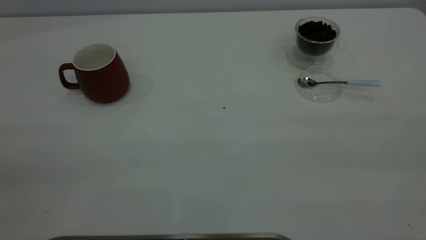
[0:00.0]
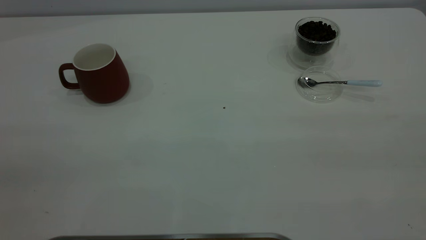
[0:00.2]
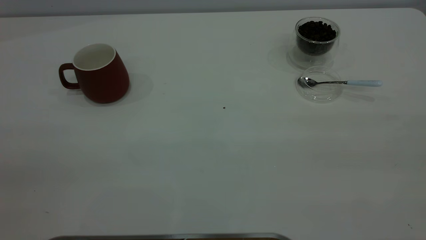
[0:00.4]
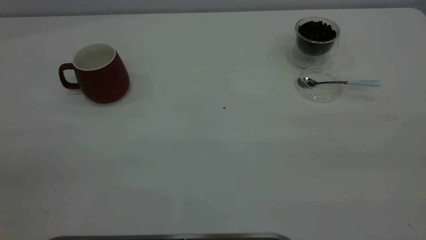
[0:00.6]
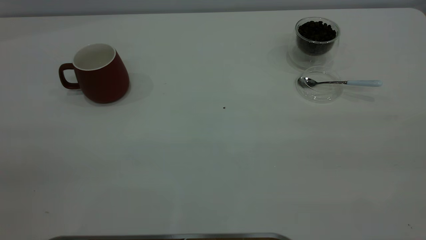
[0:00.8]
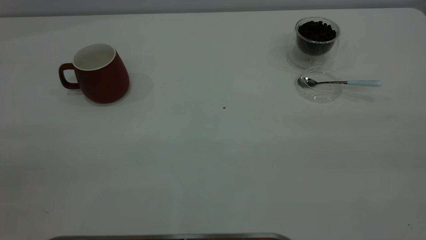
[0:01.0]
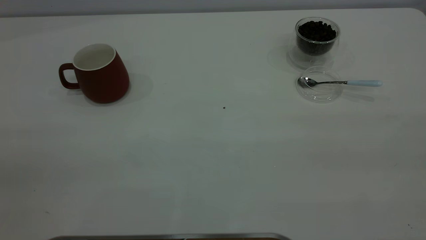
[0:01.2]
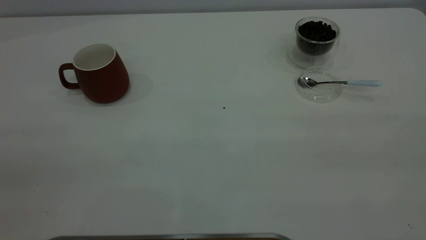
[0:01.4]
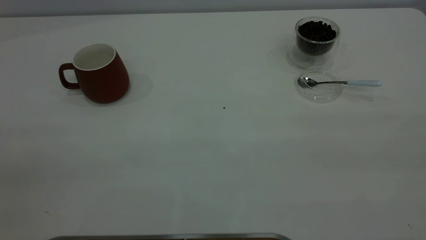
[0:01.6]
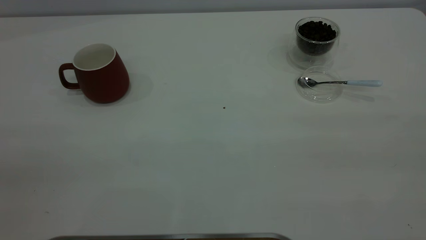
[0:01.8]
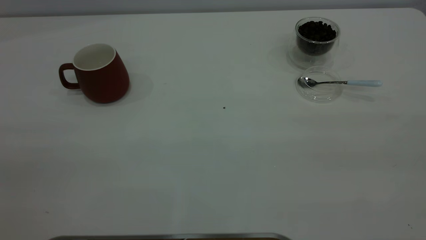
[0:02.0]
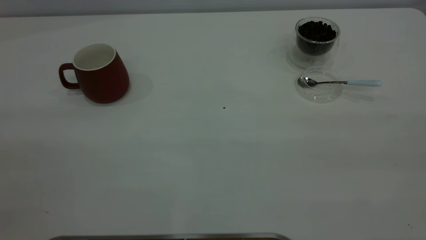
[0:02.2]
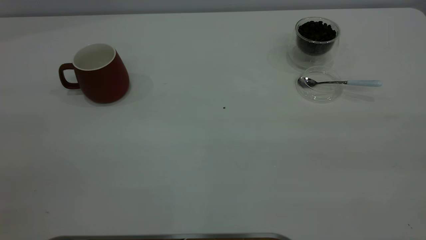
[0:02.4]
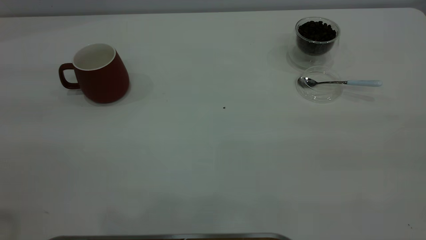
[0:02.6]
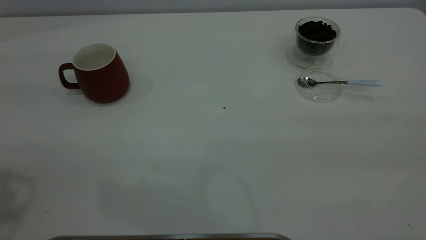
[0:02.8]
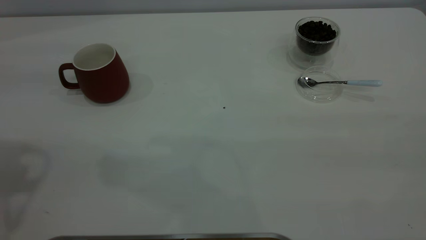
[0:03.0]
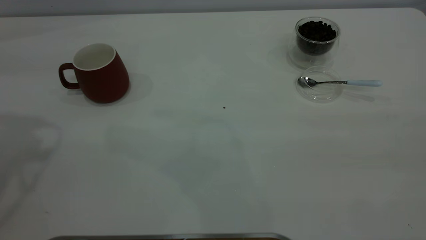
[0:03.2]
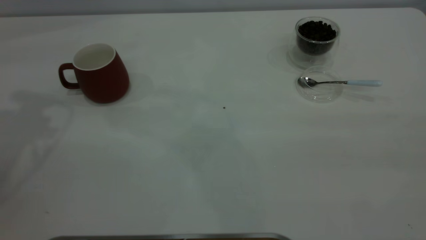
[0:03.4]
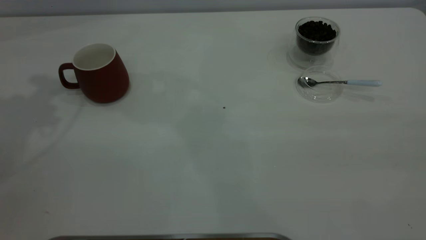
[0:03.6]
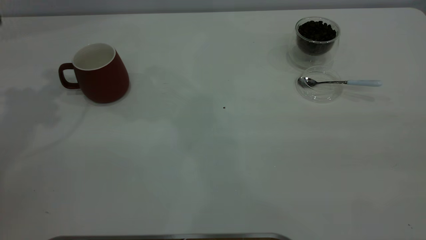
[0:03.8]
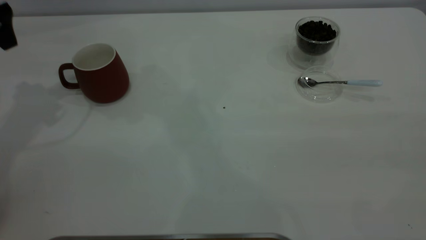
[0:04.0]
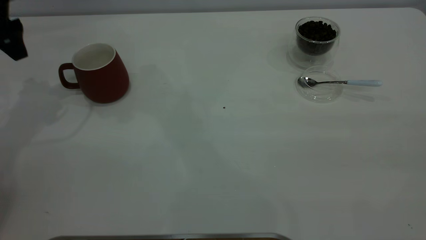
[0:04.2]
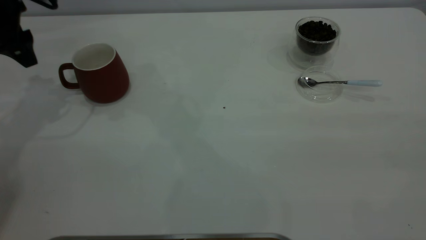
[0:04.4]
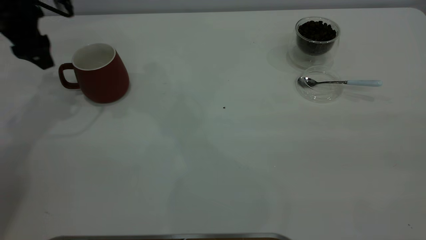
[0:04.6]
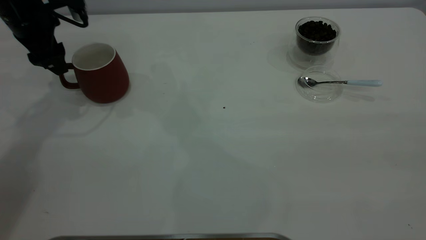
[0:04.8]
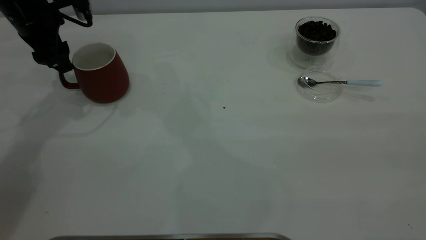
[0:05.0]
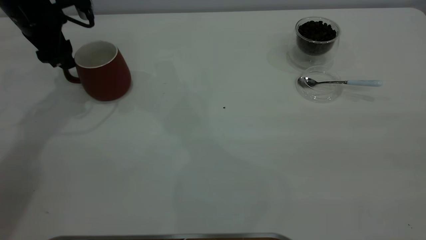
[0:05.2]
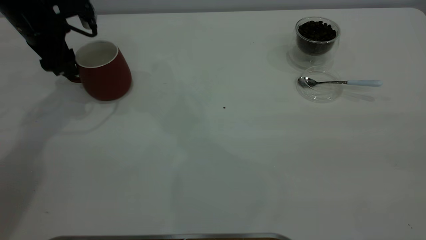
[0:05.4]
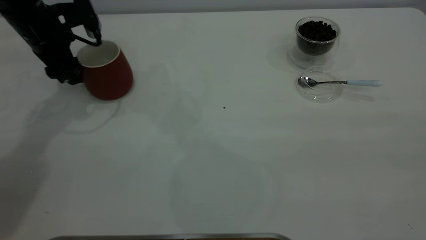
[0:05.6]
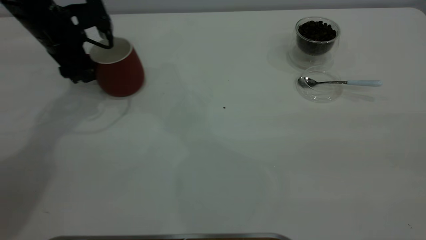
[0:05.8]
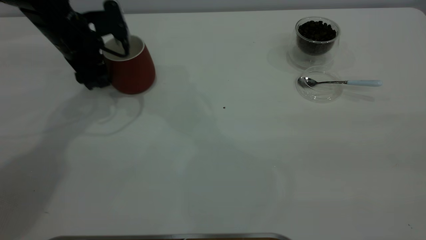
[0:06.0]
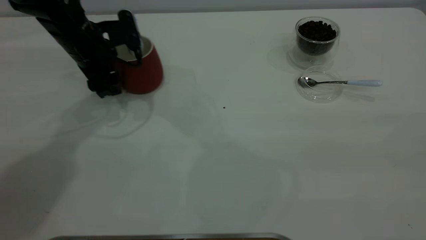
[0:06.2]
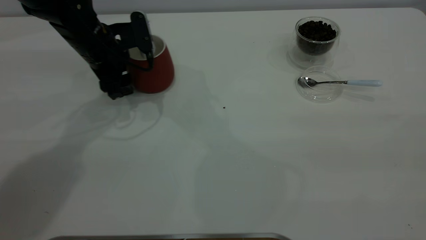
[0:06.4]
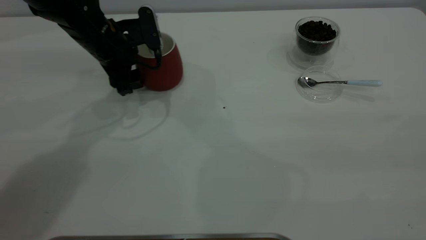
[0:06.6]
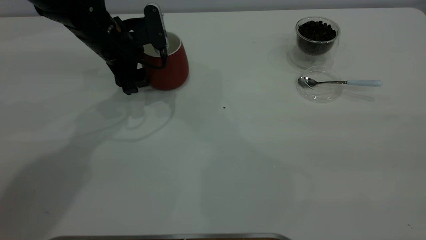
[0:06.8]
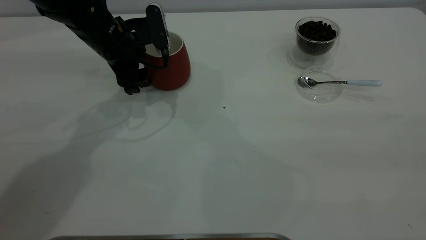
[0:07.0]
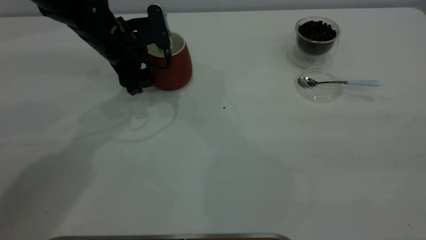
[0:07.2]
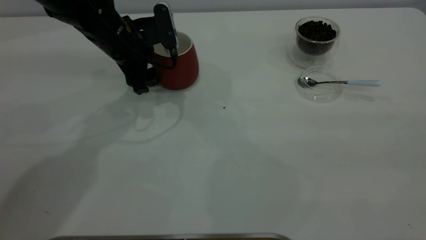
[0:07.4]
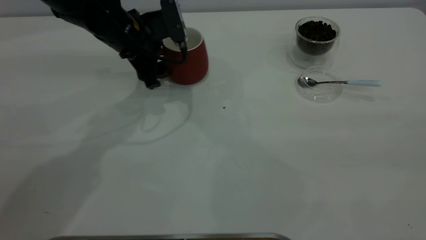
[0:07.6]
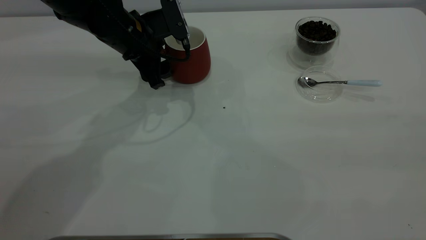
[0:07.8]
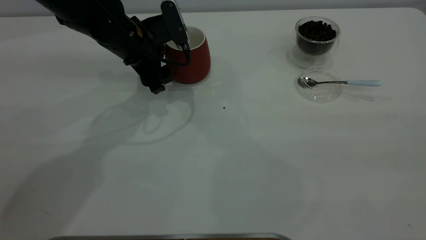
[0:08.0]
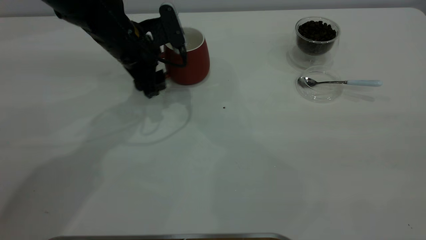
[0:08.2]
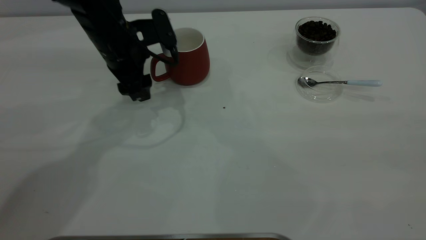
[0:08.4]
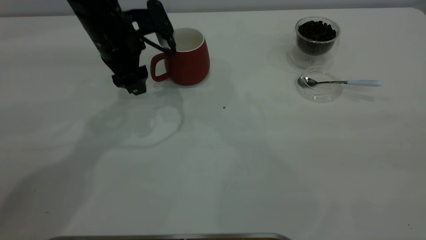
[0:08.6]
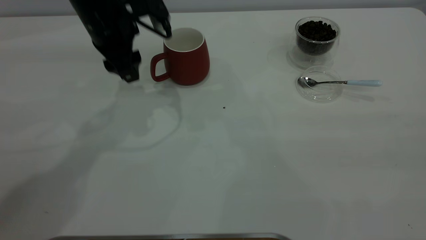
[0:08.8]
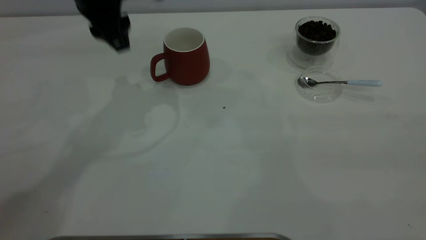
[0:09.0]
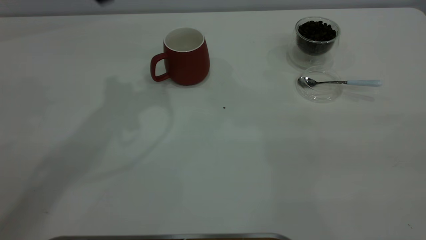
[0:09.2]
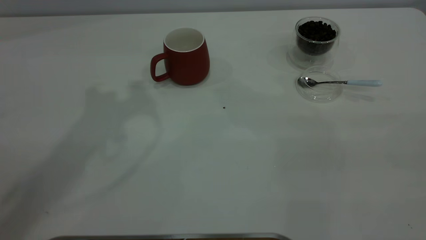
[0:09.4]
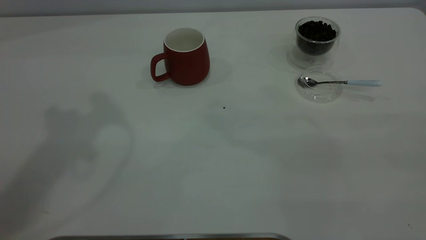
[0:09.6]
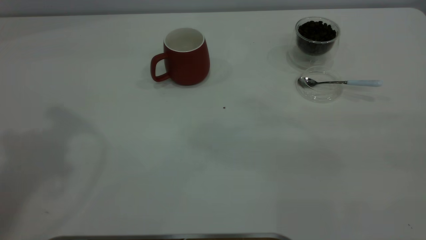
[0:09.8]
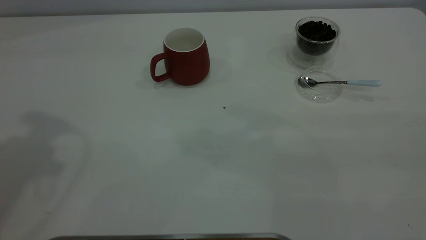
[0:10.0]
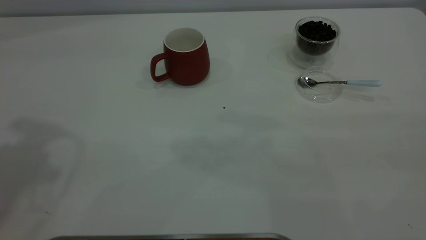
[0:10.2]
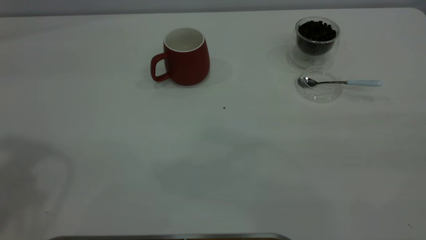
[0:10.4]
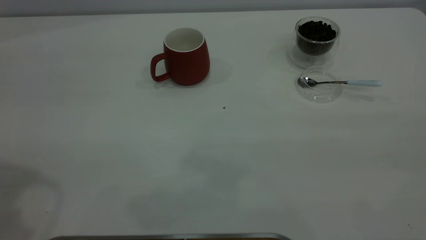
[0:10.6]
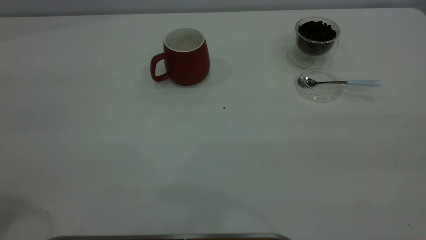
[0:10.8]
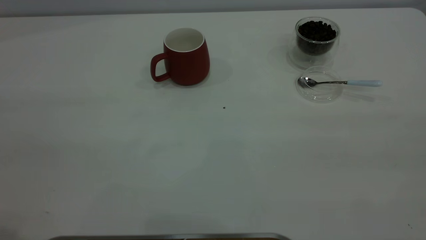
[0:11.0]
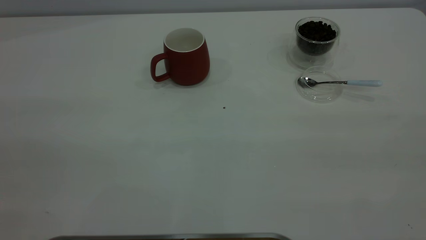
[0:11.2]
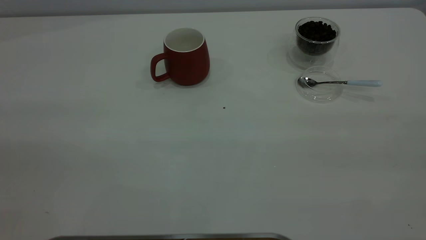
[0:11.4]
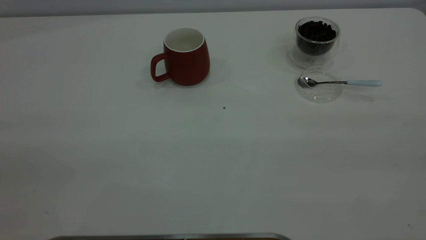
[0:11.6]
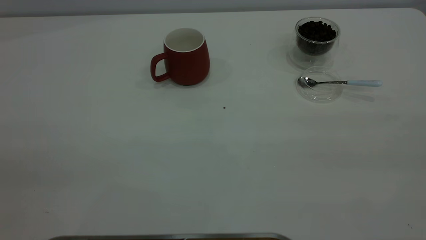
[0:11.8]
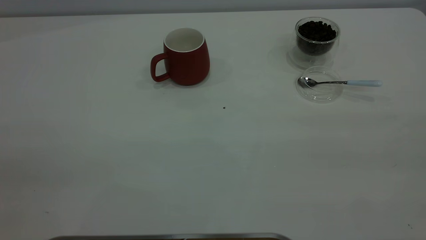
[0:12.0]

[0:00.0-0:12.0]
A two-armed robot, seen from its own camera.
Task of the whole recording: the left gripper place the red cup in the center of the table, the right gripper take the blue spoon from the cup lid and scoop out the coffee beans from the coffee cup and put them into the red cup, the right gripper put the spoon back into the cup lid.
Step, 0:00.0 to 0:08.8: Move the cup to the center of view.
0:00.0 to 0:01.6: Both grippers stay put.
0:03.0 to 0:04.4: The left gripper shifts approximately 25 cm forward and downward.
0:04.4 to 0:06.0: The left gripper is displaced to the right and downward by roughly 10 cm.
0:06.0 to 0:07.6: The left gripper moves to the right, roughly 10 cm.
0:07.6 to 0:09.0: The left gripper travels upward by some 15 cm, and closes its fingers.
0:09.0 to 0:10.4: The left gripper is displaced upward, backward and to the left by some 30 cm.

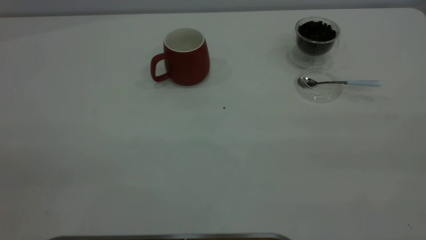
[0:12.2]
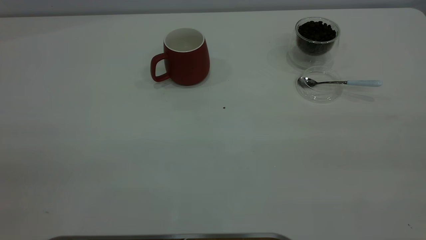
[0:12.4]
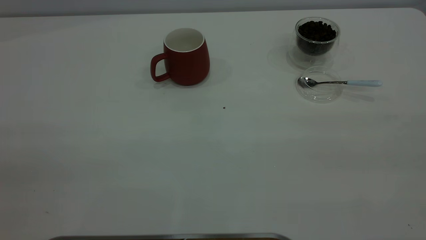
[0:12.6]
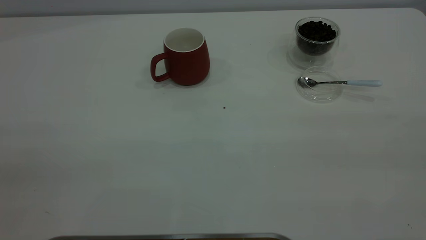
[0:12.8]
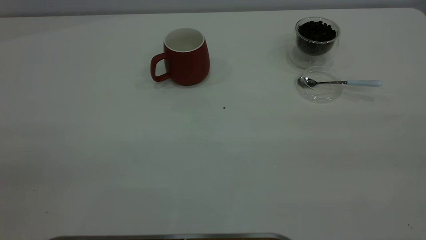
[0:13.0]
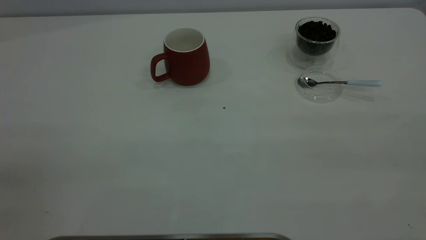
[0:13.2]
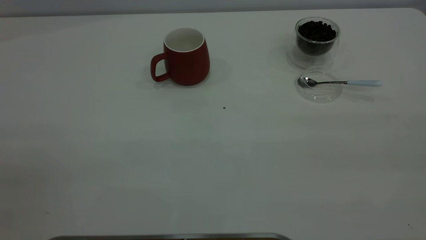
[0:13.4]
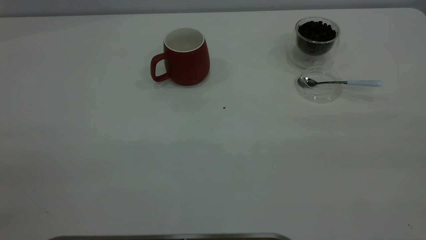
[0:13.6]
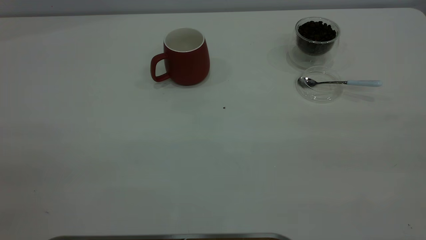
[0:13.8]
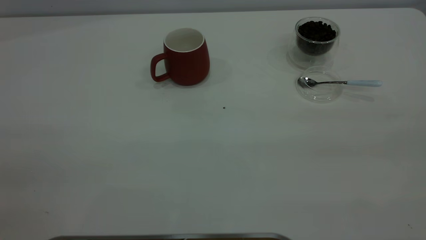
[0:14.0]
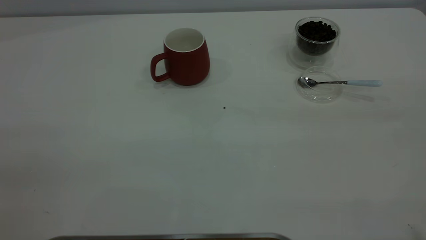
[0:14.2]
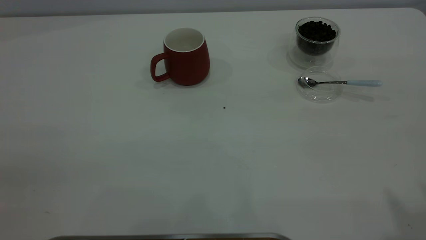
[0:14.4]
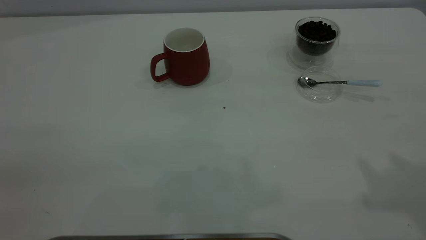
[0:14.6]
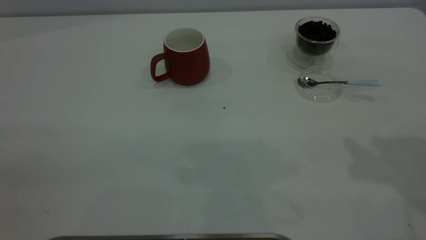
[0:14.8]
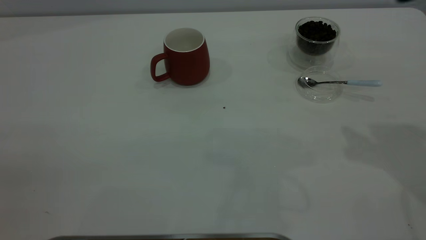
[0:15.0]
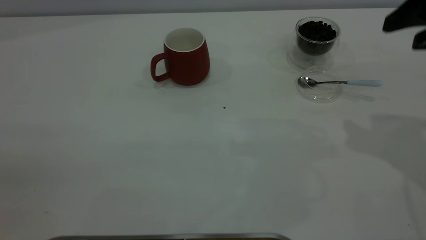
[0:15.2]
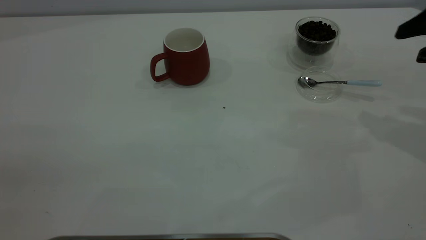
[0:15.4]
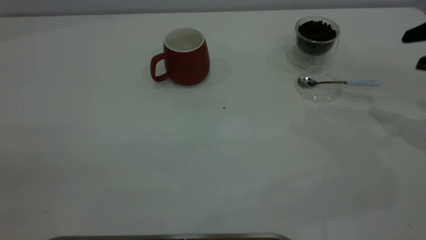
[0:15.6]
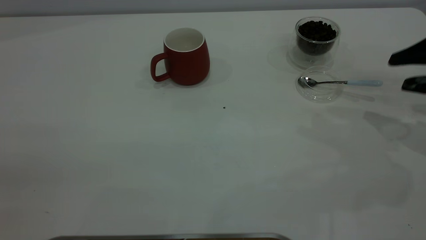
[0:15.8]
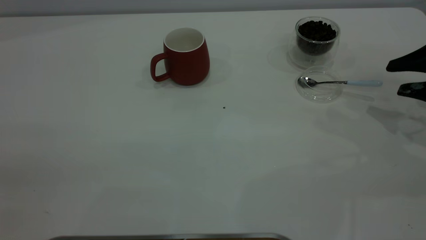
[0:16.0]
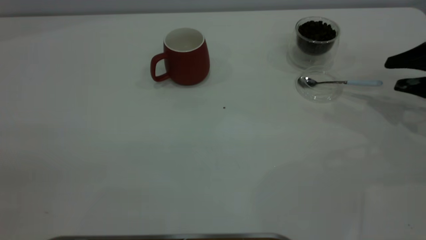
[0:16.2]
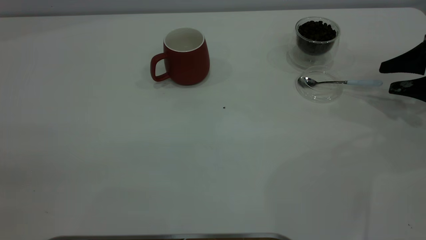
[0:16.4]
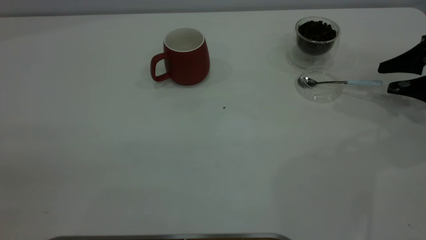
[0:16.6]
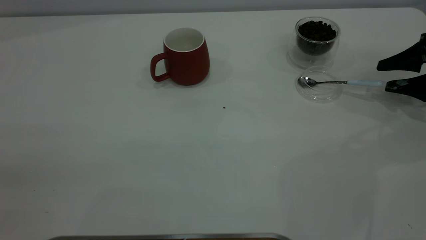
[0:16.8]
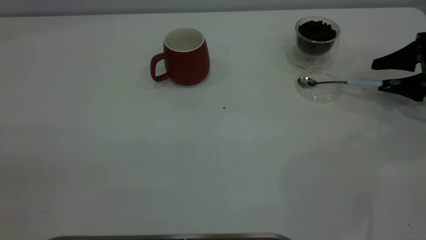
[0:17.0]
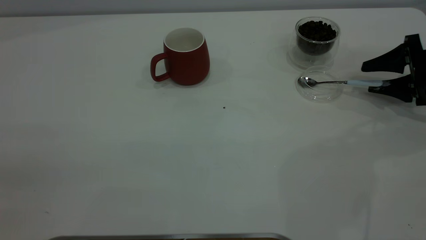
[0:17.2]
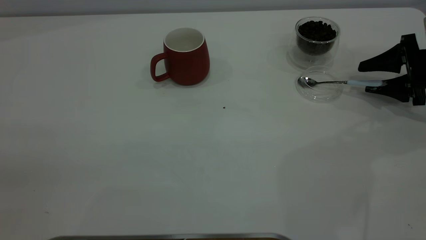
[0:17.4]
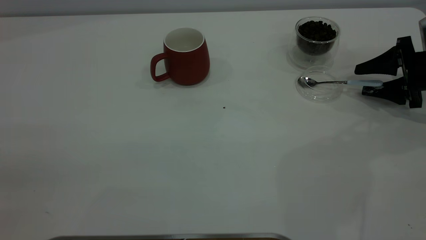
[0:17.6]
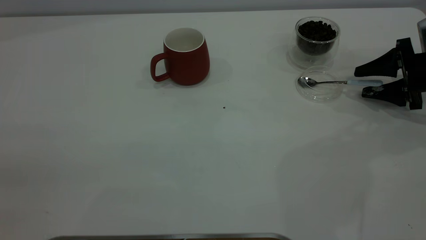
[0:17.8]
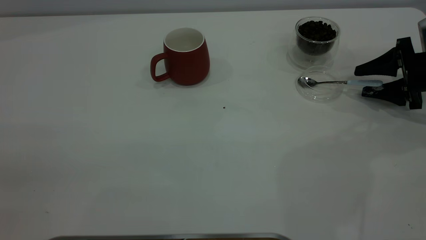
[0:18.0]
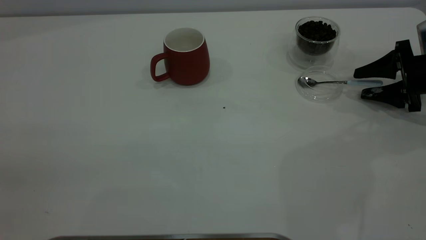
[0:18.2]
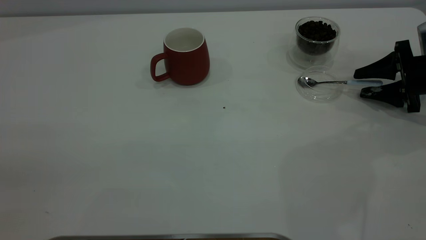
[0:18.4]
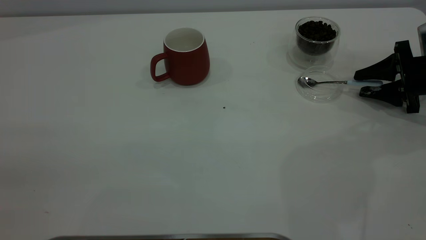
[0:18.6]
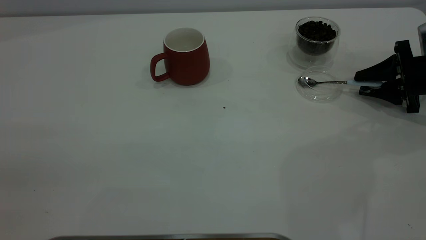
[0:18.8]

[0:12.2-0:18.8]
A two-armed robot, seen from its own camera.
Task of the whole recording: the left gripper place the red cup in the center of the table, the right gripper take the blue spoon from the cup lid and scoop out the coffee beans from the coffee cup and put them into the red cup, the right gripper put the spoon back into the cup lid.
0:13.8 to 0:15.4: The right gripper shifts about 35 cm forward and downward.
0:15.4 to 0:17.2: The right gripper is displaced downward and forward by some 15 cm.
0:17.2 to 0:18.8: The right gripper closes up.
